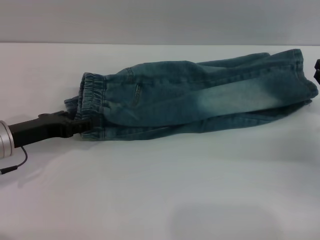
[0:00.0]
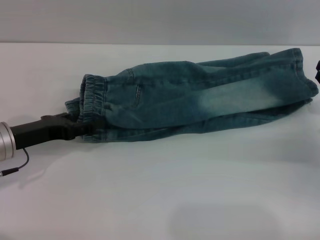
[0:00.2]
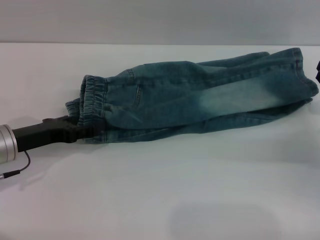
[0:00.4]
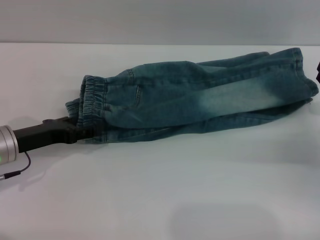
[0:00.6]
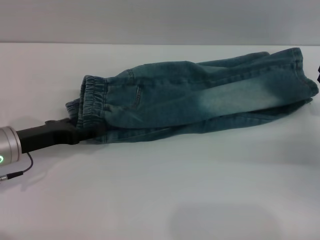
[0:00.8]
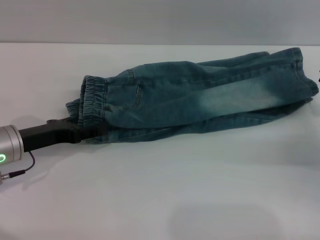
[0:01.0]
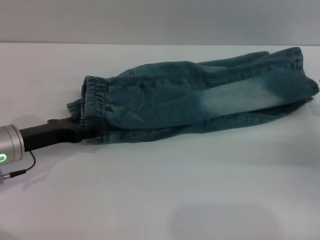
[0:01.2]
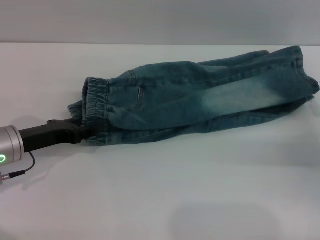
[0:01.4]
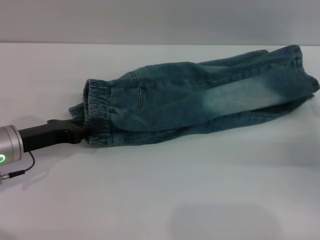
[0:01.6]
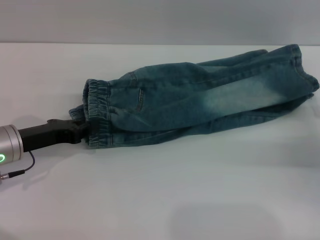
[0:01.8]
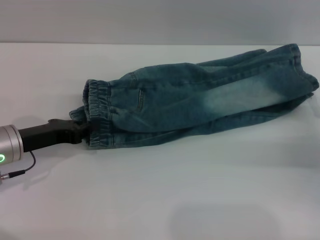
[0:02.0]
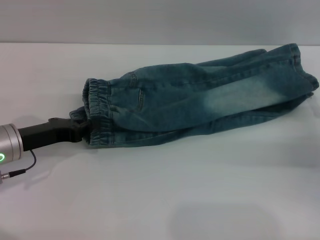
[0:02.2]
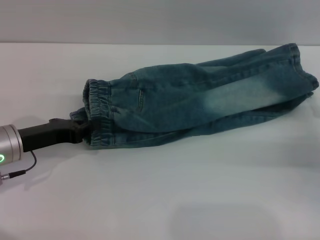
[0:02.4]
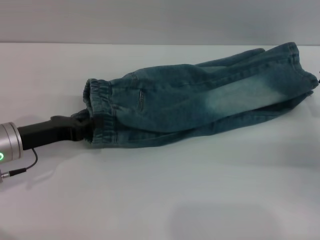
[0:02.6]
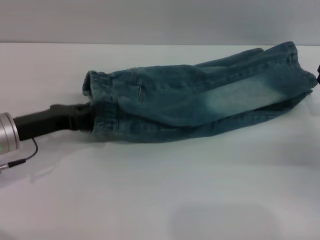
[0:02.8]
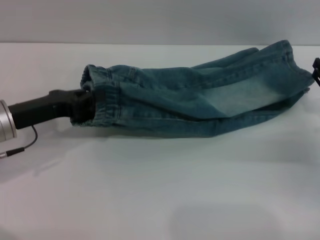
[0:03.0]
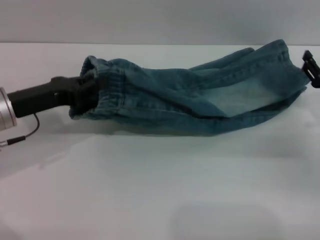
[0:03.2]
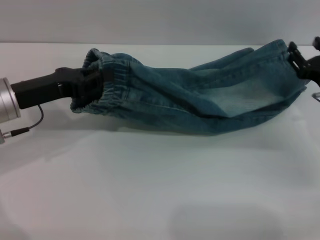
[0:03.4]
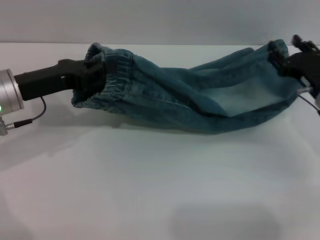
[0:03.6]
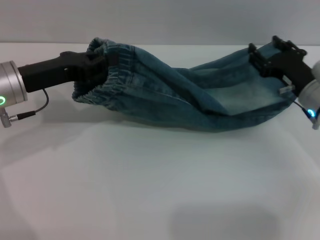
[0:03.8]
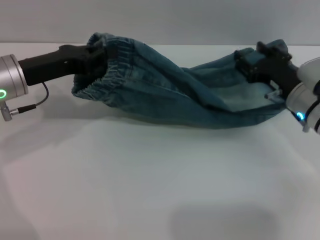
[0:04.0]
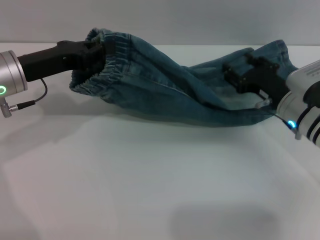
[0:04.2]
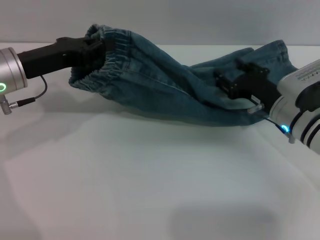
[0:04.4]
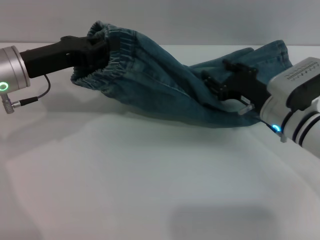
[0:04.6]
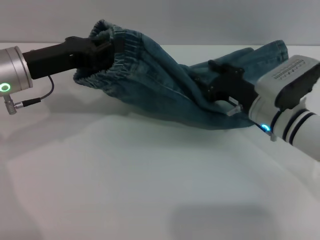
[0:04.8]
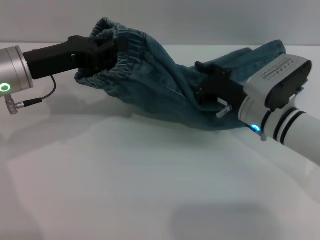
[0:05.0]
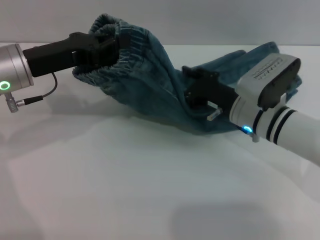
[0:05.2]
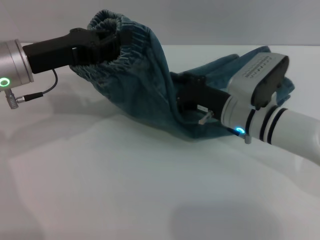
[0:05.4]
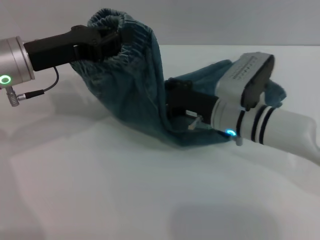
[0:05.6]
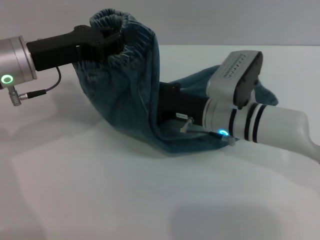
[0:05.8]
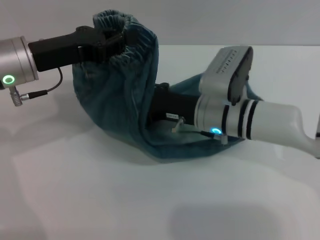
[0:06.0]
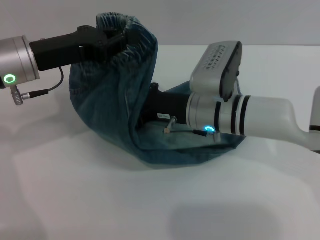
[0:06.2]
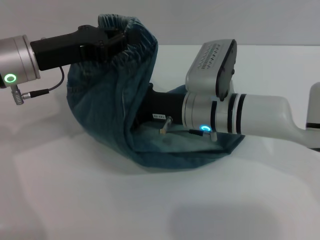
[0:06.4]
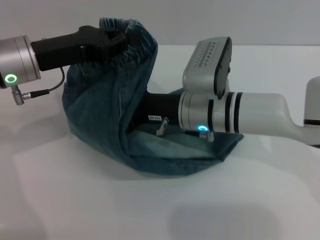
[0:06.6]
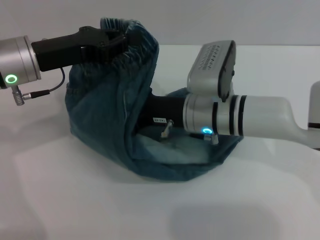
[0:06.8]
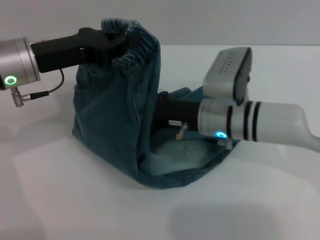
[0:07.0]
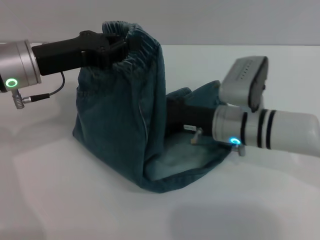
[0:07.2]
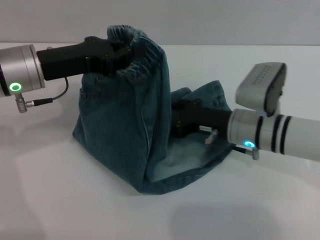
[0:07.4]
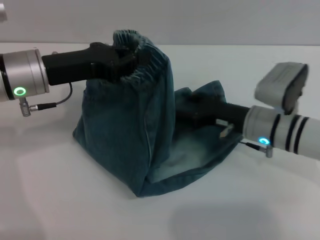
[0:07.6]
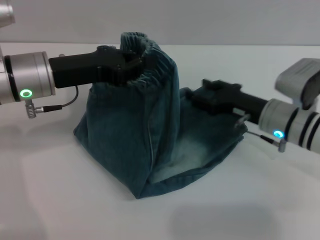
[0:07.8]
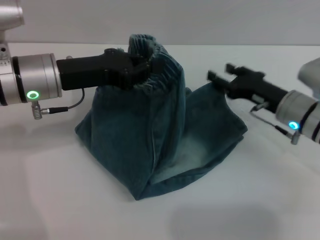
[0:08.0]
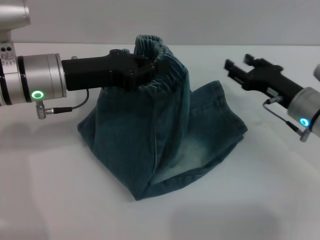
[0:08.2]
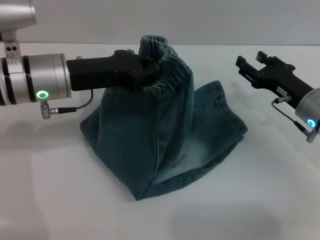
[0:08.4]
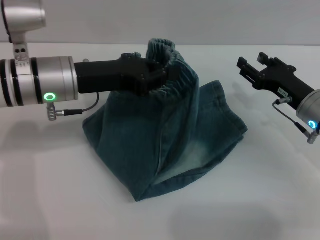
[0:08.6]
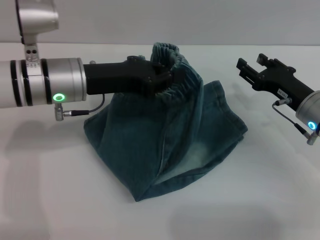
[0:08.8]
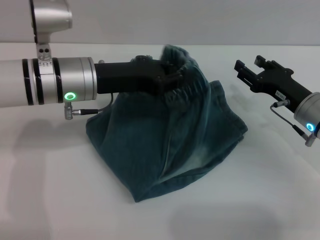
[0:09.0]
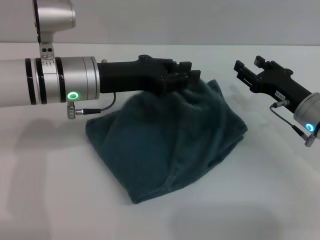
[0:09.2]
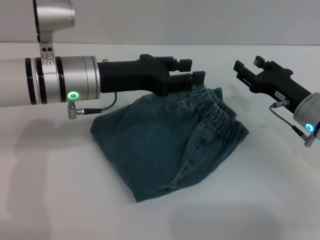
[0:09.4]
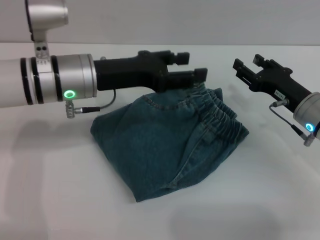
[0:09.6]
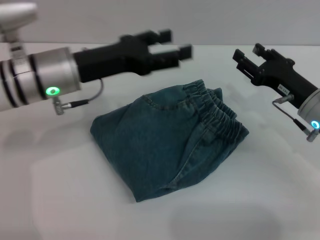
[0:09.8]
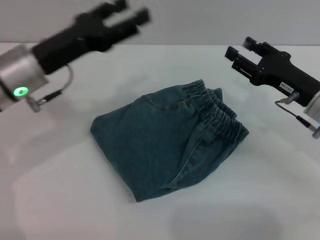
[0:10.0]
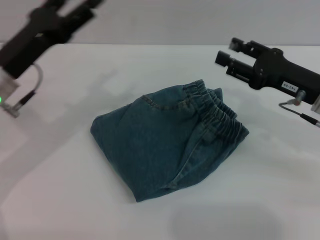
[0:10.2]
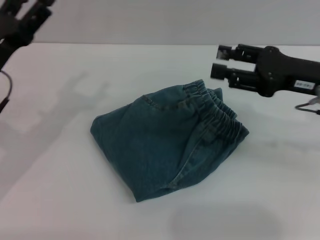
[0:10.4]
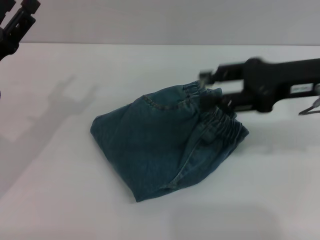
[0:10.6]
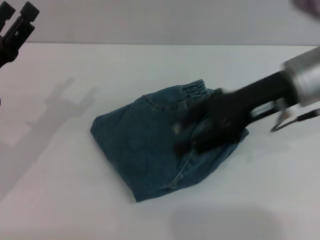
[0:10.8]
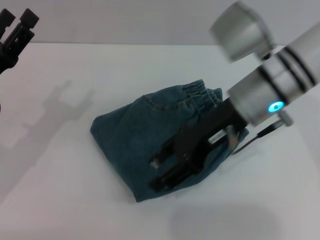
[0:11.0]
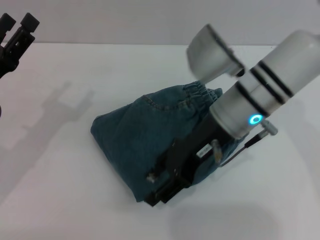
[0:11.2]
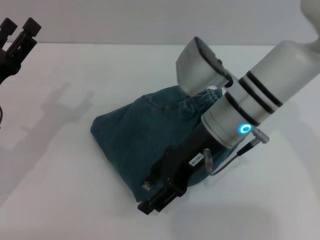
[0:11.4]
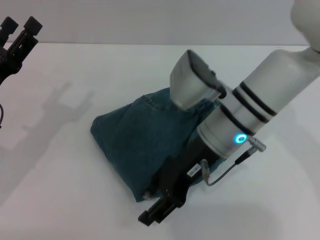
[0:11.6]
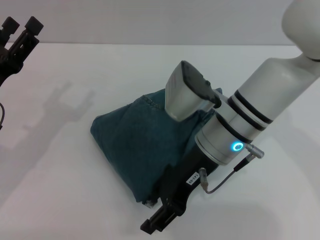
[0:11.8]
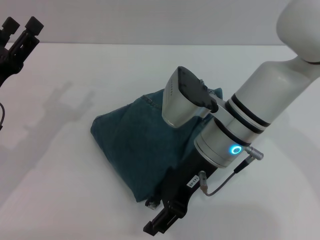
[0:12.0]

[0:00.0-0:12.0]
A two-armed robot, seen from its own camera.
Step, 0:00.0 to 0:09.4: Fold the pants from left to right with the left gripper.
0:00.0 to 0:01.6: Both grippers stay about where they are.
0:01.6 to 0:03.0: The left gripper closes its fingers.
0:03.0 to 0:04.4: The right gripper heads to the left, covering about 10 cm; the left gripper moves approximately 5 cm.
0:04.4 to 0:06.0: The right gripper shifts some 10 cm to the left.
0:06.0 to 0:07.6: The right gripper moves to the right, roughly 5 cm.
0:07.6 to 0:09.0: The two grippers go roughly 5 cm to the right.
0:09.0 to 0:10.4: The left gripper shifts roughly 15 cm to the left and backward, and opens its fingers; the right gripper moves upward, about 10 cm.
0:10.4 to 0:12.0: The right gripper is displaced to the left by some 20 cm.

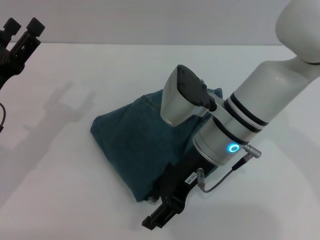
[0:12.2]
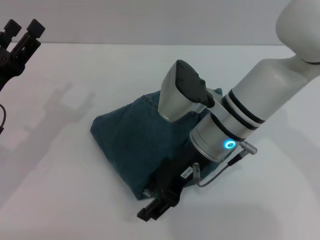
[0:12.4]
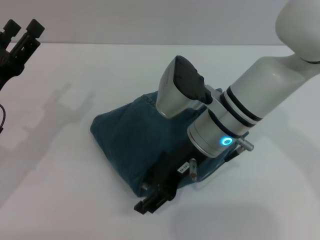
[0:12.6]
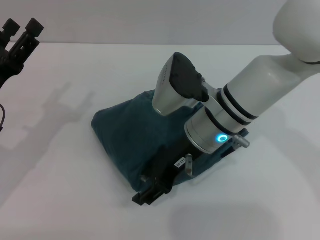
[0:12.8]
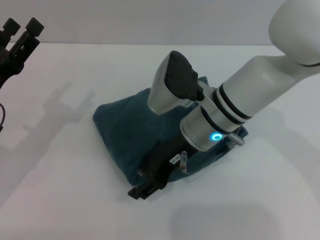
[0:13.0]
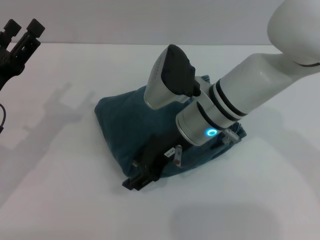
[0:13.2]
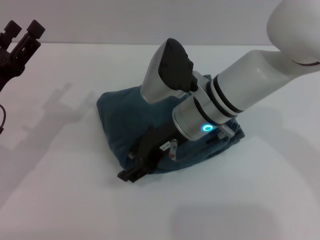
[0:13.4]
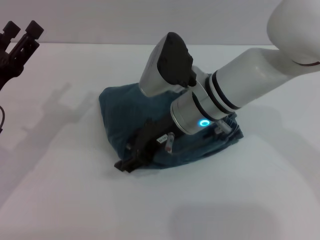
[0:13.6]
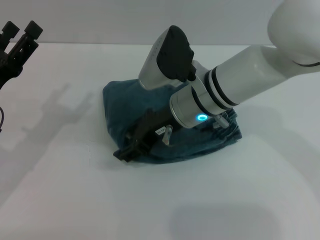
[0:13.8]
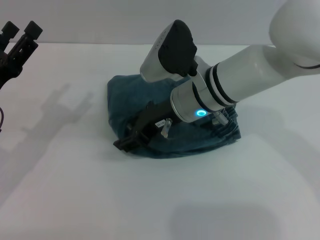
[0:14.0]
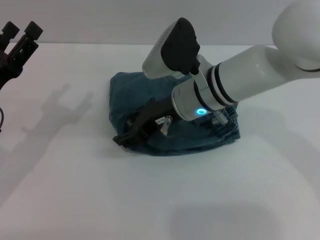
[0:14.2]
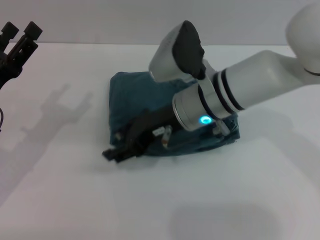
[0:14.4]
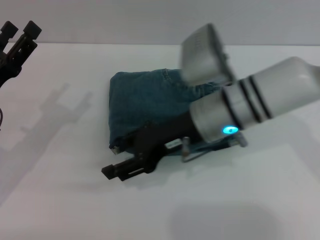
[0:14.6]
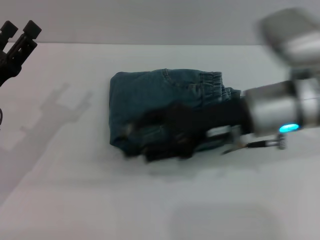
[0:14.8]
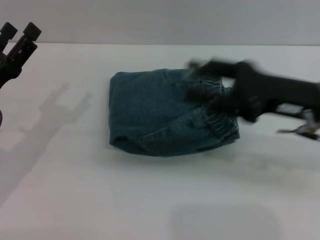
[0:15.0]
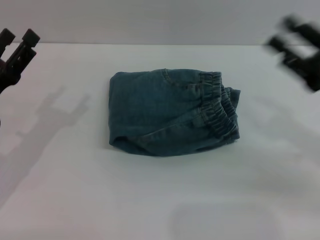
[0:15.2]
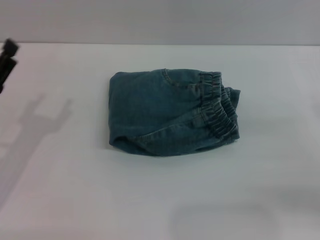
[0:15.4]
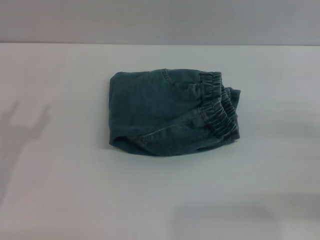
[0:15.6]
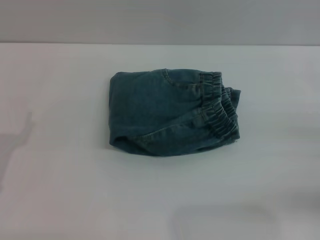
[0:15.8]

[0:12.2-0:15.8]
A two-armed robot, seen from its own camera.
Step, 0:12.2 to 0:14.6: Place the folded trousers onto the center area with the right grippers.
0:14.0 to 0:15.8: The right gripper moves to the right and backward, some 35 cm. The left gripper heads backward, covering some 5 cm.
